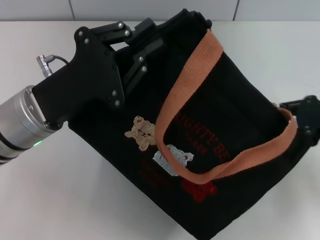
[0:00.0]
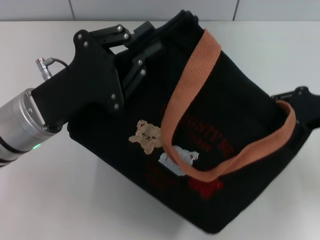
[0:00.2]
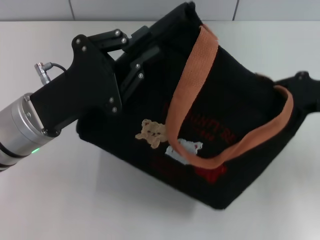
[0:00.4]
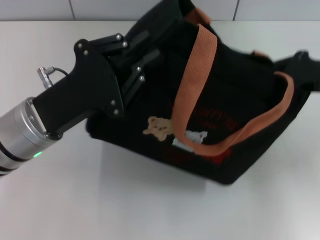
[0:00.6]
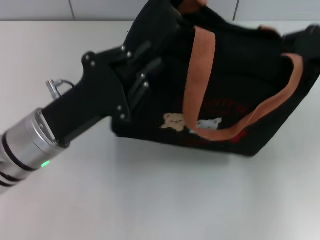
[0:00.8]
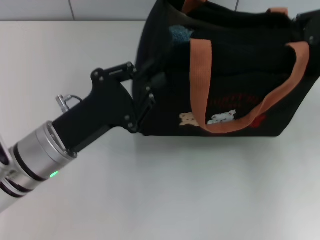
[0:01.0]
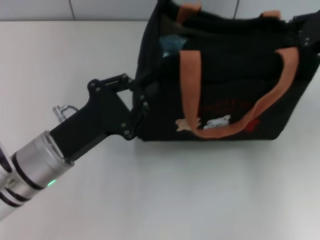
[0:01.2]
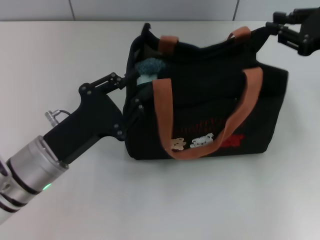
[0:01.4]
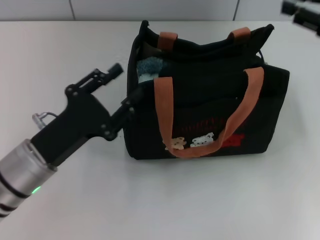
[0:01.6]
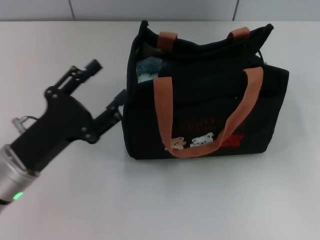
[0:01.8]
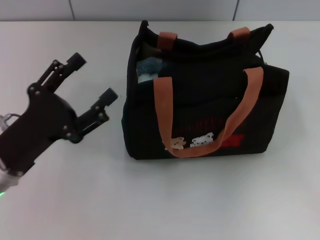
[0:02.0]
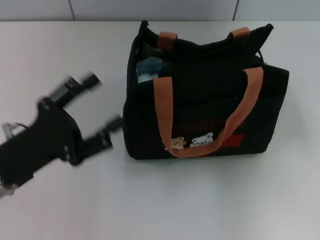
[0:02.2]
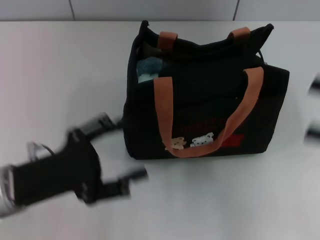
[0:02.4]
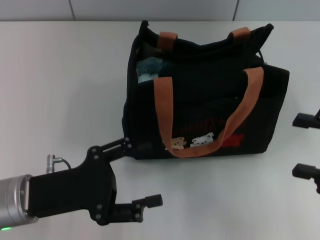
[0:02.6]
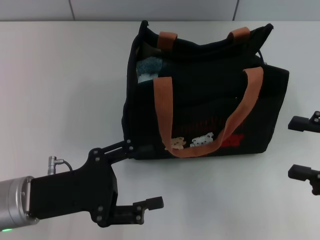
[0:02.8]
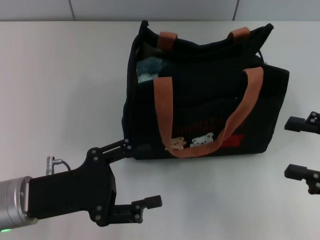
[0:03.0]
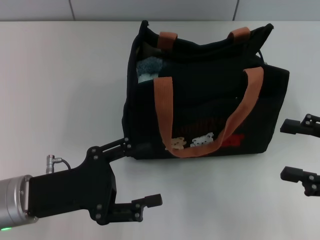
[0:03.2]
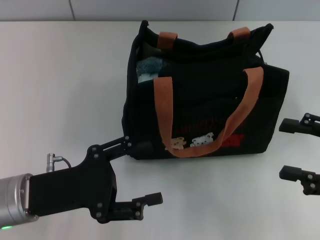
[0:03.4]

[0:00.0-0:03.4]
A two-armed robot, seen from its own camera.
Step, 0:00.0 to 0:01.4: Grab the bag with your left hand.
0:00.0 to 0:01.6: The left gripper travels downward by some 5 cm. Meanwhile the right gripper ends up some 5 cm from where it was, and closes.
0:01.6 to 0:03.4: The left gripper opens its fingers; the right gripper travels backward and downward by approximately 15 cm, and opens up.

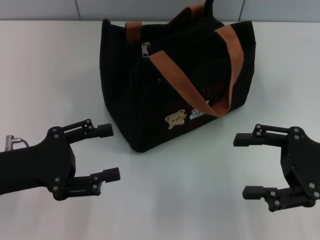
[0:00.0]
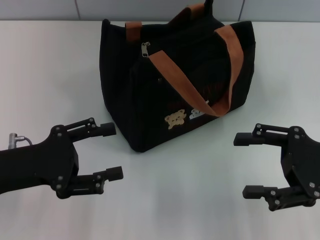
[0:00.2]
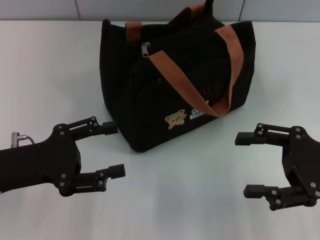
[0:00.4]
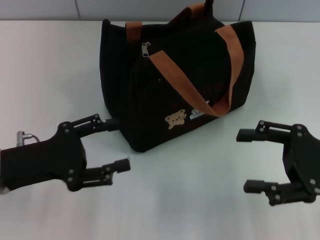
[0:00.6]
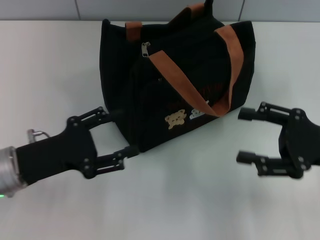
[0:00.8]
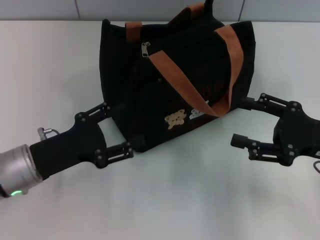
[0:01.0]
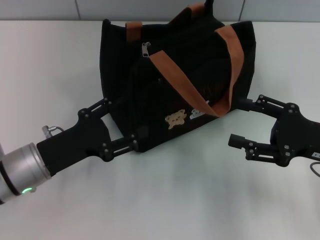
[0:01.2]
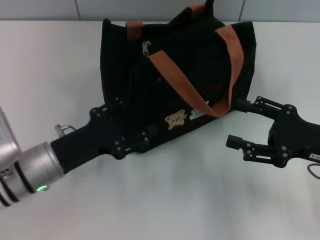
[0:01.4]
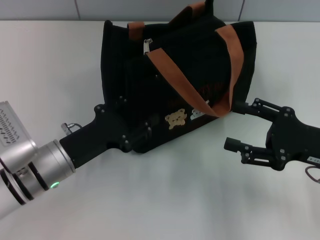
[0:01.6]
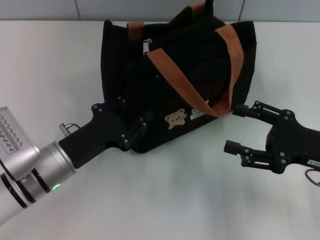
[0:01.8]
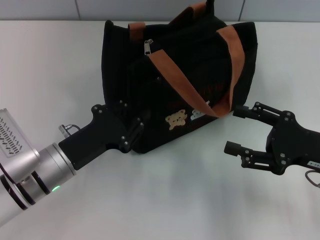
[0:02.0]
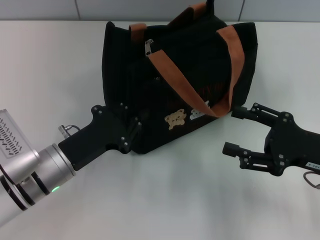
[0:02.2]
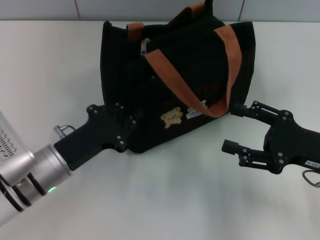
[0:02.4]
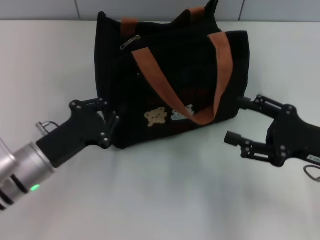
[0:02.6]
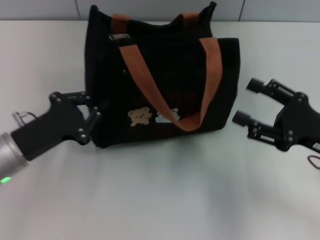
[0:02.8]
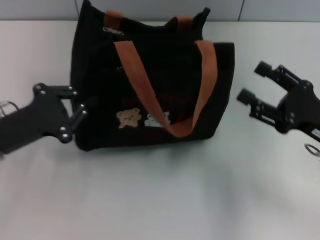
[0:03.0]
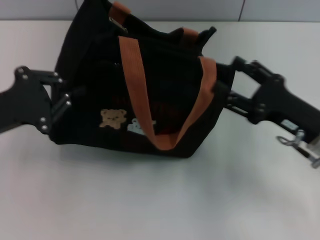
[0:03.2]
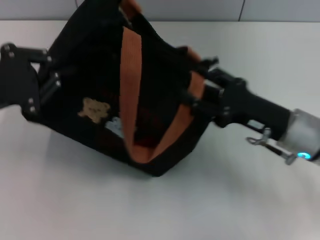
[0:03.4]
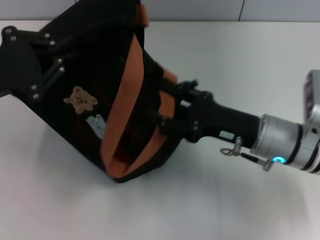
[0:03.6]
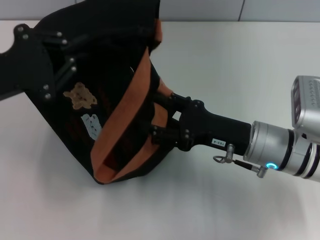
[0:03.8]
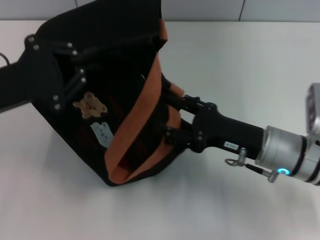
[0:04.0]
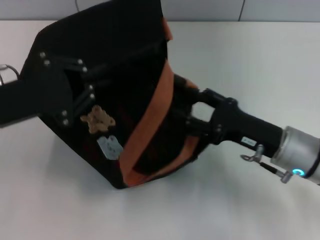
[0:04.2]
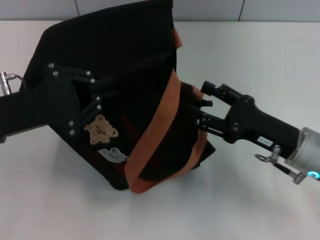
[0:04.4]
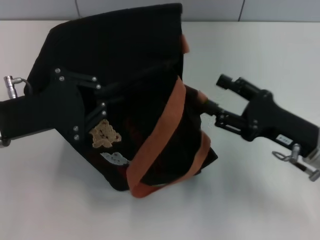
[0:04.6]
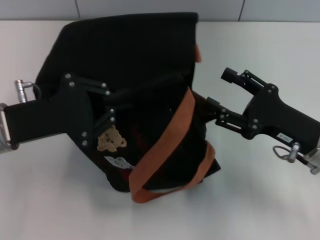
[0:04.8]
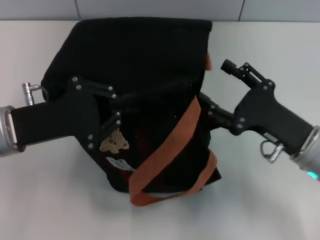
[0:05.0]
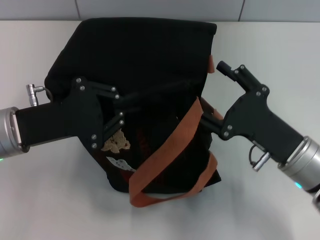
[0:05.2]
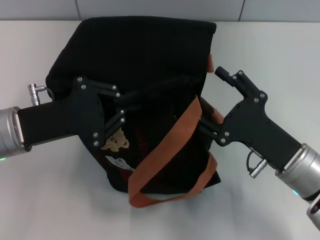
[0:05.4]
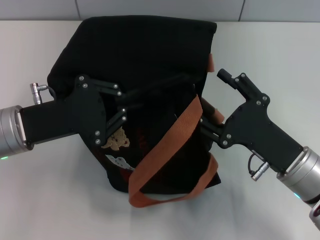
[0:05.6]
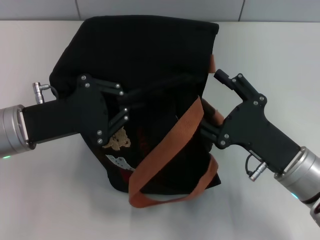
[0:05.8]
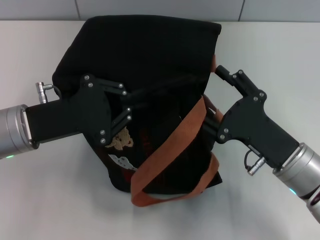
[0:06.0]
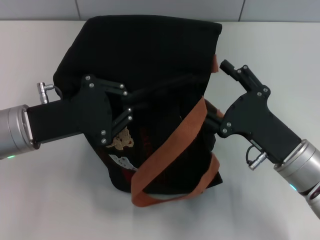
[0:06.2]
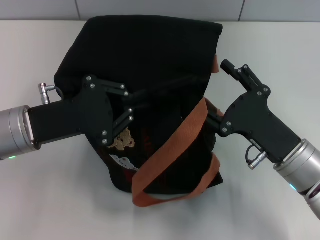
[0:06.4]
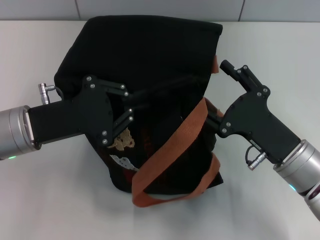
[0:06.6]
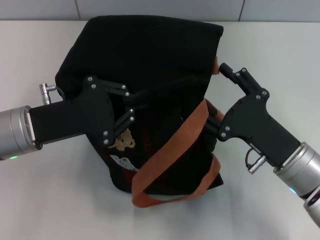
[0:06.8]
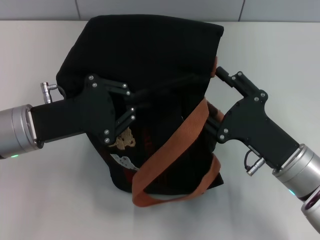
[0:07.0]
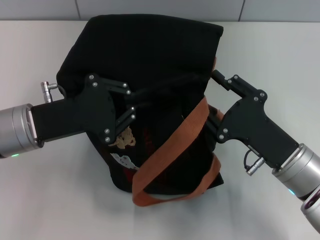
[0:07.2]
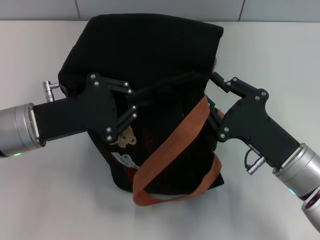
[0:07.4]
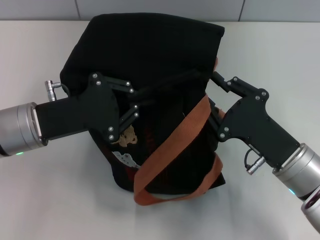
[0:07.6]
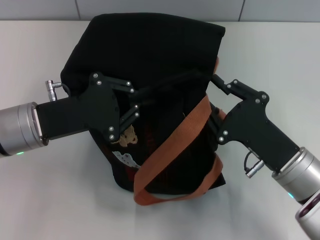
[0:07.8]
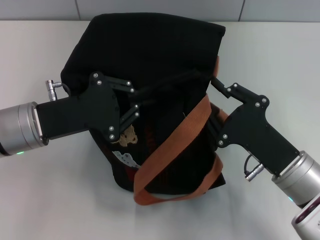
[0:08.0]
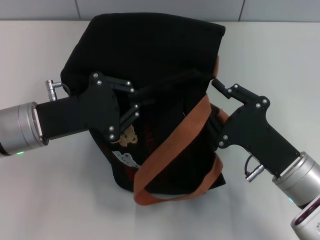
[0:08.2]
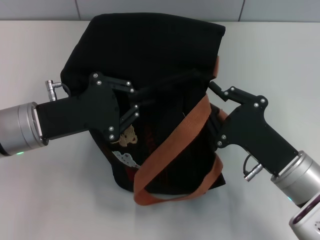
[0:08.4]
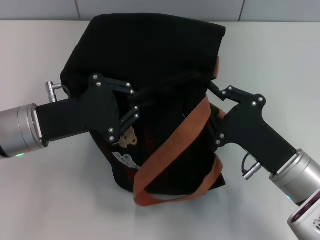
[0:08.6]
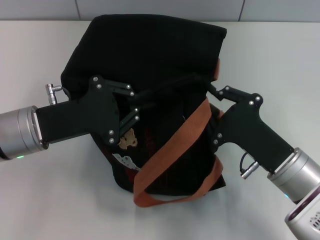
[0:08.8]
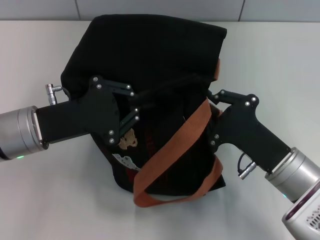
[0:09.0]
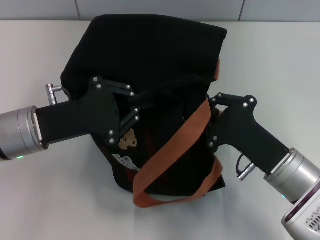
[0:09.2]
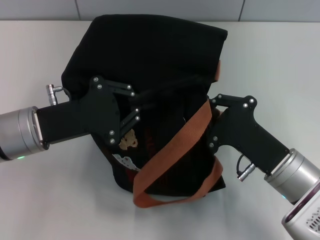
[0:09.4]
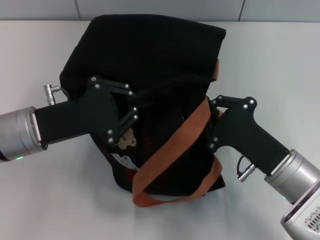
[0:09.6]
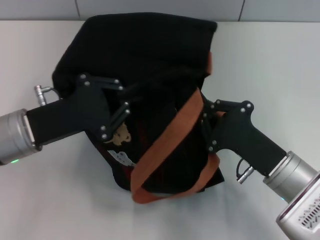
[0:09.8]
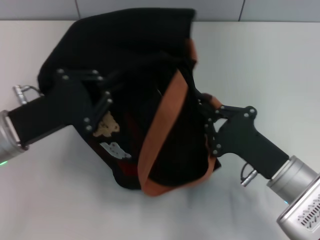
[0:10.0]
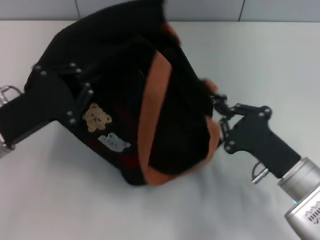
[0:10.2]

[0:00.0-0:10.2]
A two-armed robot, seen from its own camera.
0:00.0 to 0:01.4: The left gripper travels to the right and downward by approximately 10 cm.
0:01.4 to 0:03.0: The left gripper travels to the left by roughly 5 cm, and closes.
0:03.0 to 0:04.4: The right gripper travels to the left by about 5 cm.
0:05.8 to 0:07.2: Both grippers stay put.
0:07.2 to 0:08.8: The right gripper closes.

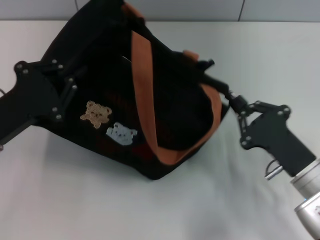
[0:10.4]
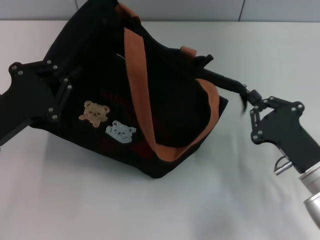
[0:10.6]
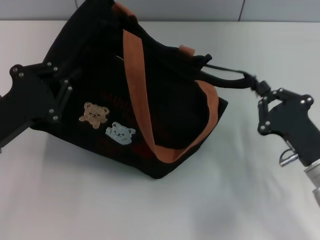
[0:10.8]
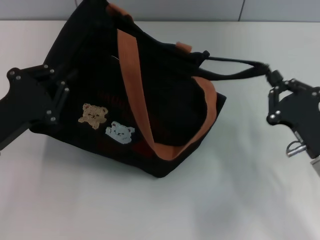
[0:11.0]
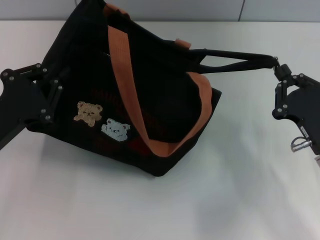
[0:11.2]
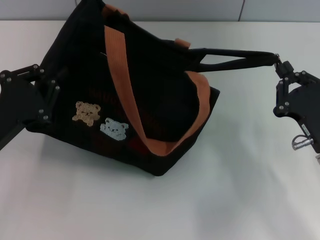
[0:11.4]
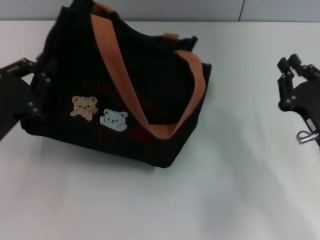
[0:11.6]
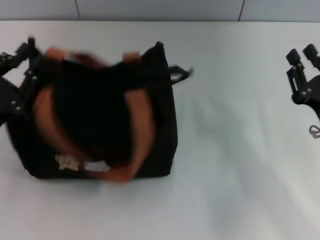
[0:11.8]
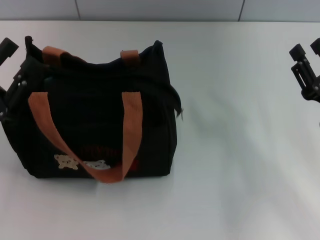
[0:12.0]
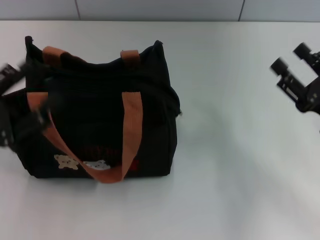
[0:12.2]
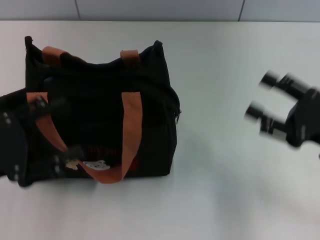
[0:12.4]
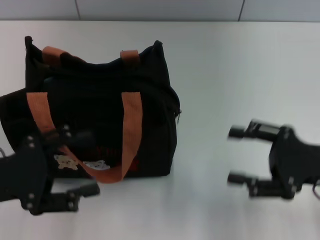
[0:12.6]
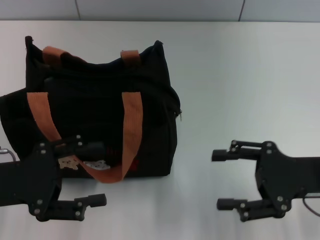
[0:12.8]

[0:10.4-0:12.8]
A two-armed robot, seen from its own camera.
Step, 0:11.6 to 0:12.0: Grab the bag with your left hand.
0:11.6 to 0:12.8: The right gripper shifts by roughly 5 cm, and opens up; the left gripper opens.
